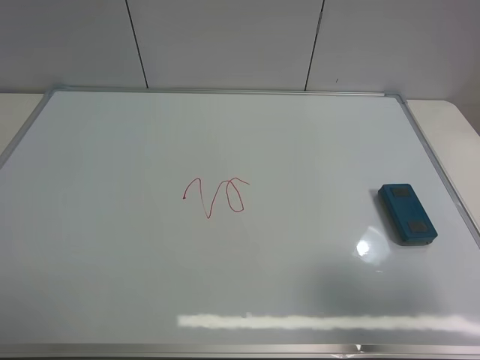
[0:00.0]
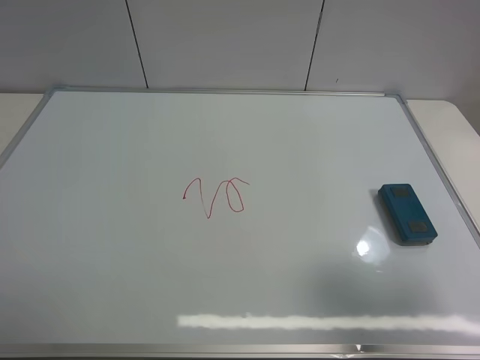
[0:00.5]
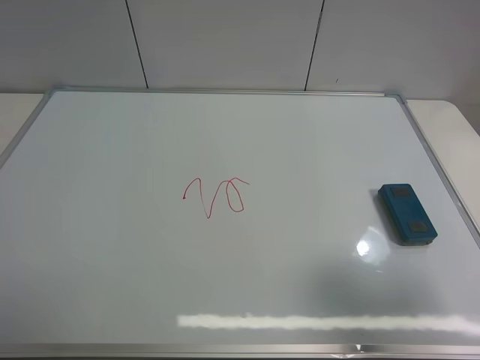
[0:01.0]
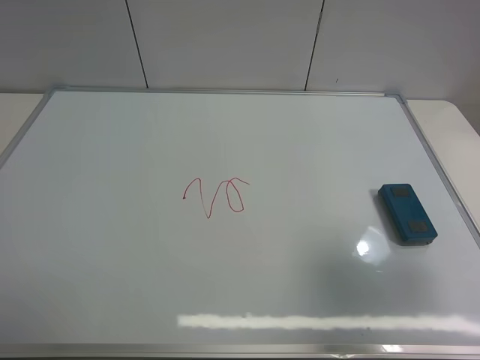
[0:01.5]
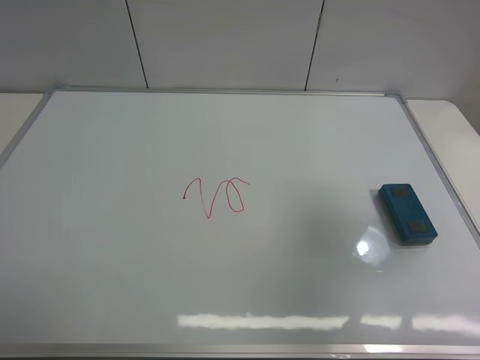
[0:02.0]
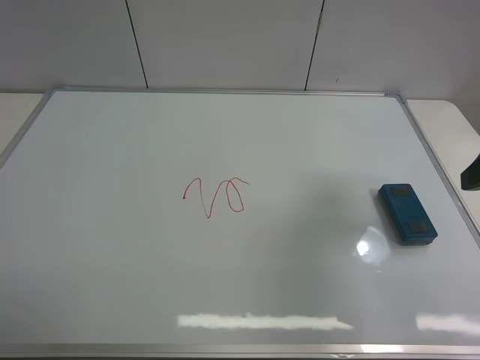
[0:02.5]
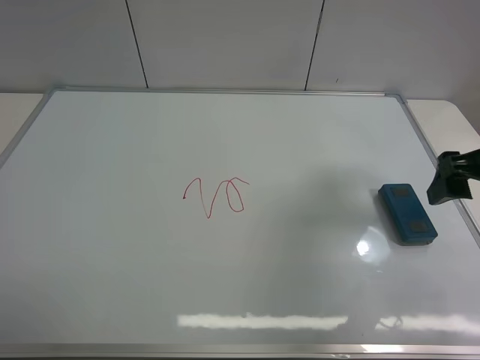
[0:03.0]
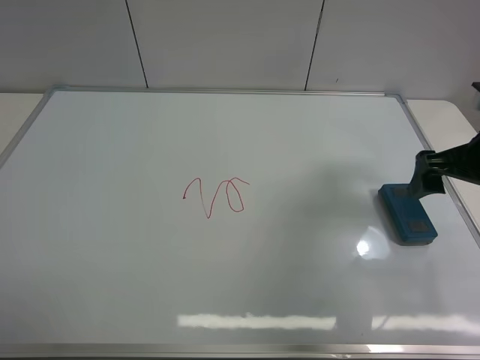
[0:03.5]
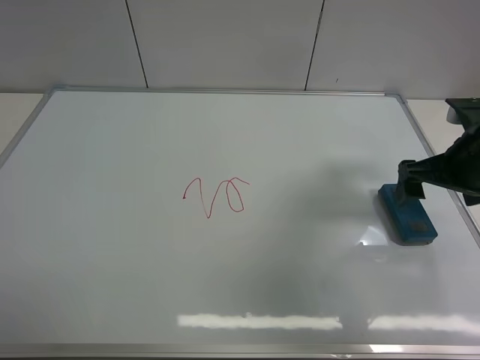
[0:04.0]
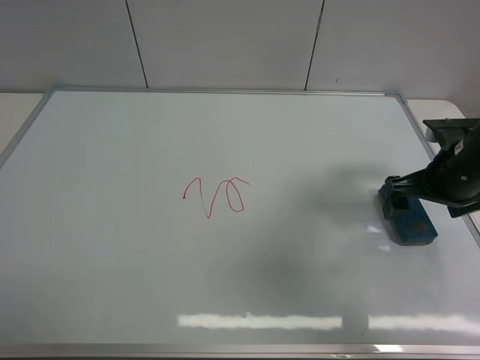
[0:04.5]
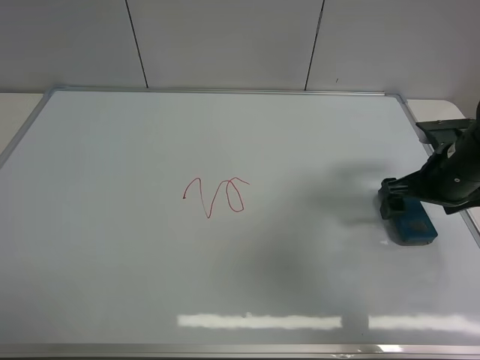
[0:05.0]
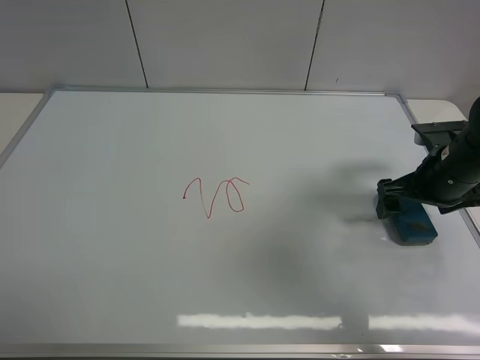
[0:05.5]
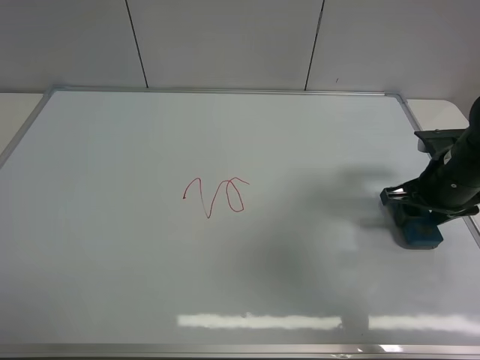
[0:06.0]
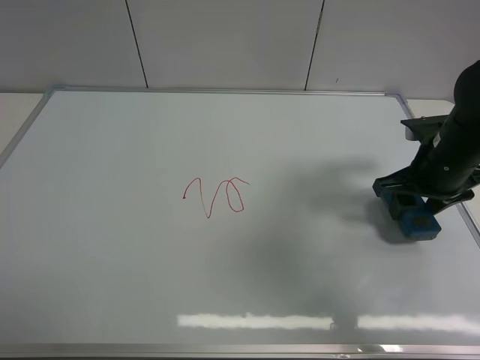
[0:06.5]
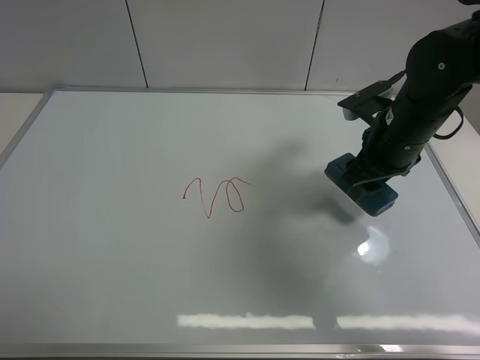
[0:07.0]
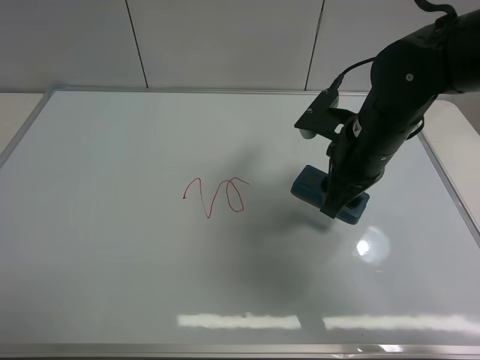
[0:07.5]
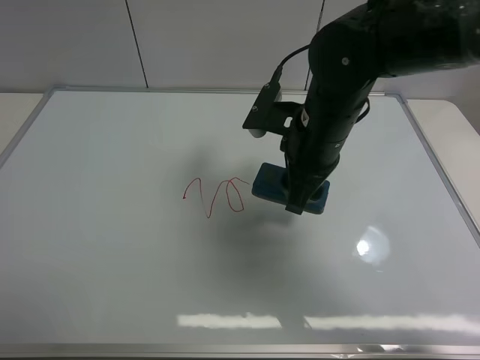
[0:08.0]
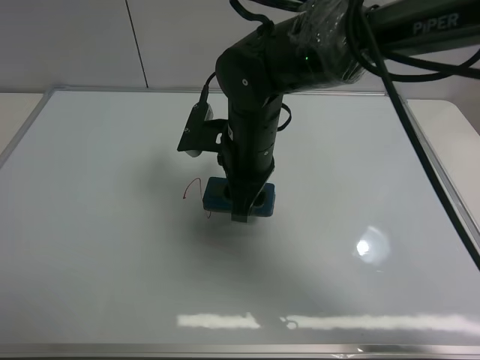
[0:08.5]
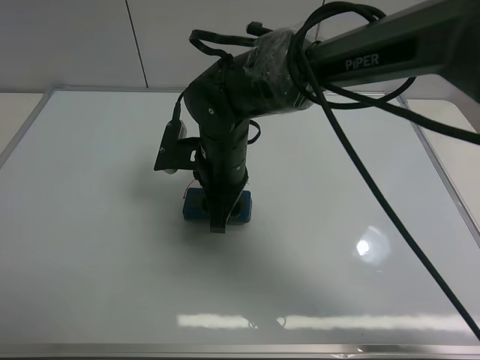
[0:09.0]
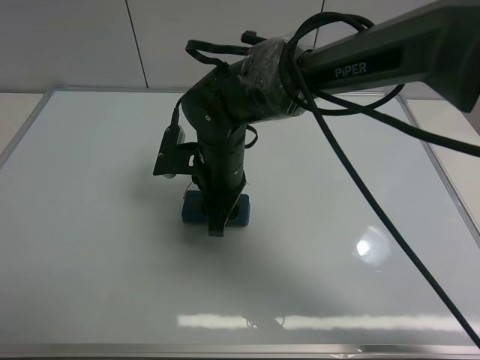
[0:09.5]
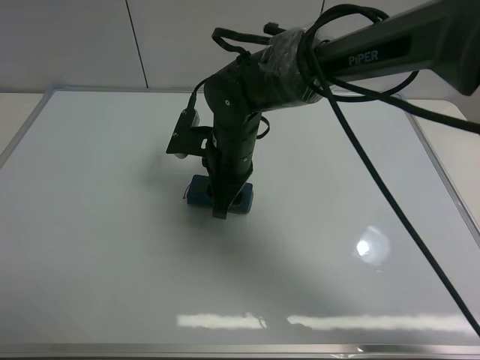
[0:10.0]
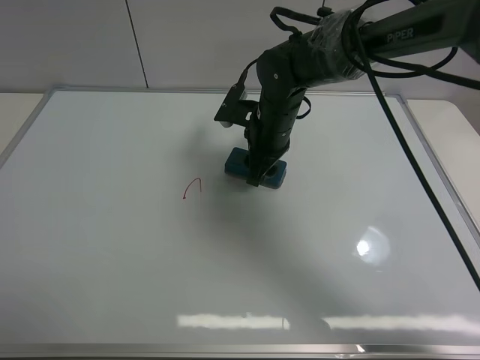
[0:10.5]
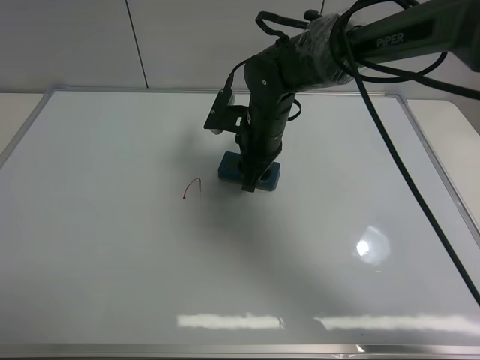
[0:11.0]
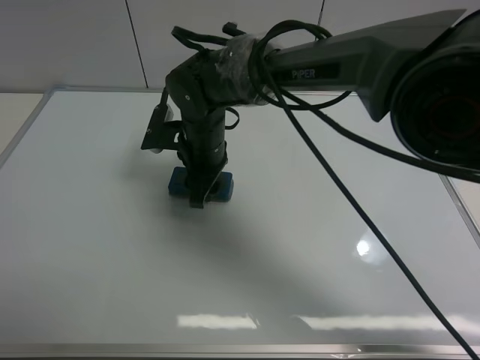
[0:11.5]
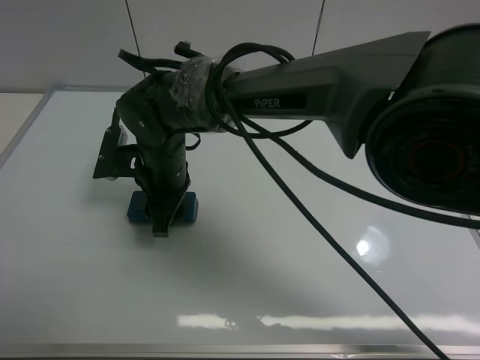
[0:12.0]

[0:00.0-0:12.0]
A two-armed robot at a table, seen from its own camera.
Task of the whole recording: use the right gripper to pick up the board eraser, wipe the notes on the whiteboard clean, and then put them back in place.
Step, 0:00.0 to 0:06.5: Pick up the board eraser with right gripper.
0:00.0 to 0:02.0: The right gripper moves forward, about 10 cm.
0:02.0 to 0:04.0: The right gripper goes roughly 20 cm forward and downward.
0:04.0 to 0:06.0: The right gripper shifts some 5 cm downward, and closes up.
0:06.0 to 0:08.0: The right gripper travels to the left by some 20 cm.
0:08.0 to 0:10.0: The right gripper is displaced to the left and downward by some 10 cm.
0:10.0 to 0:12.0: The right gripper is displaced to the left by approximately 10 cm.

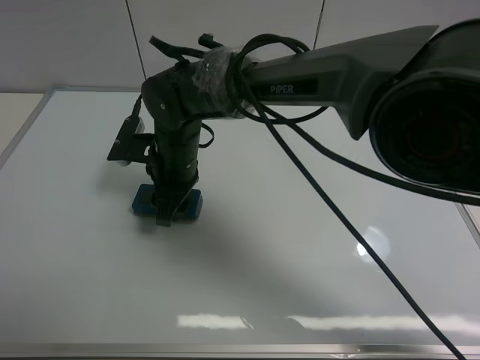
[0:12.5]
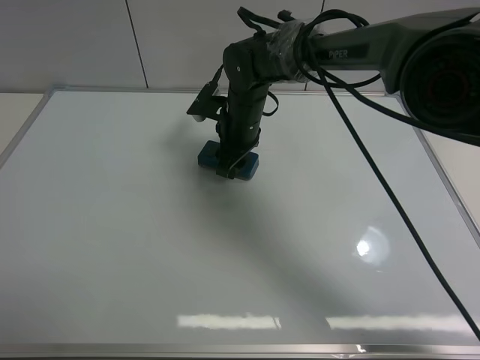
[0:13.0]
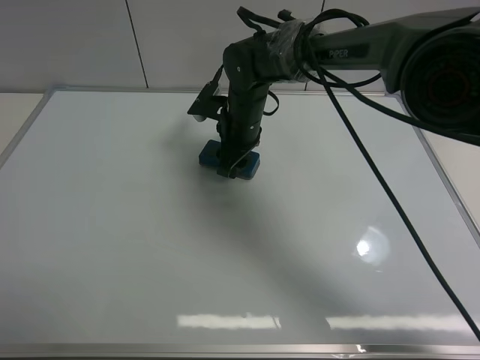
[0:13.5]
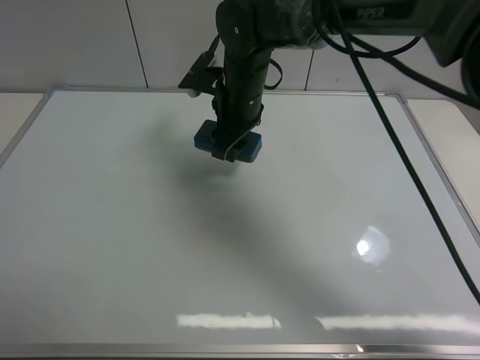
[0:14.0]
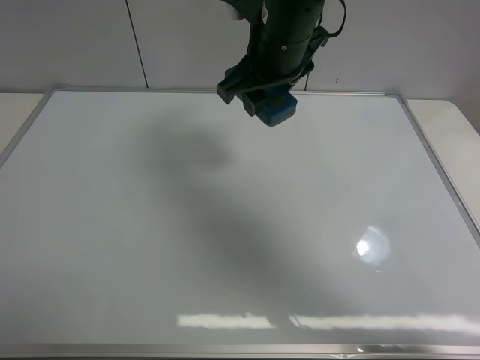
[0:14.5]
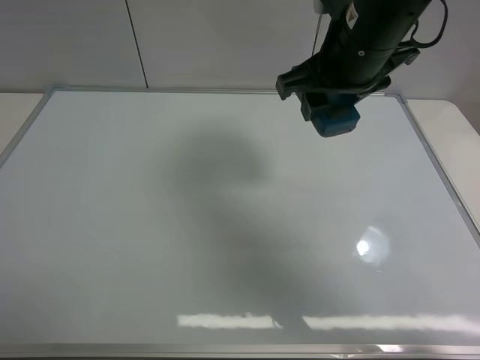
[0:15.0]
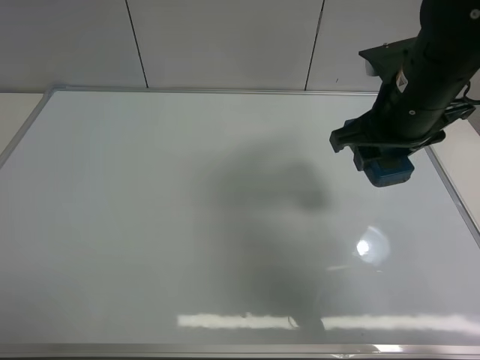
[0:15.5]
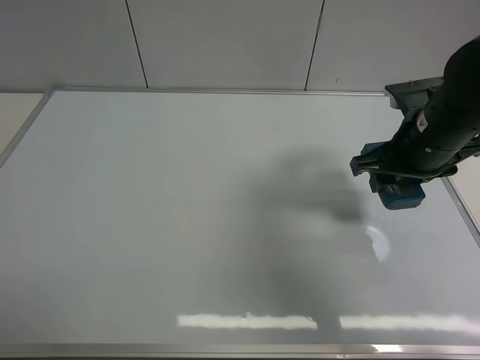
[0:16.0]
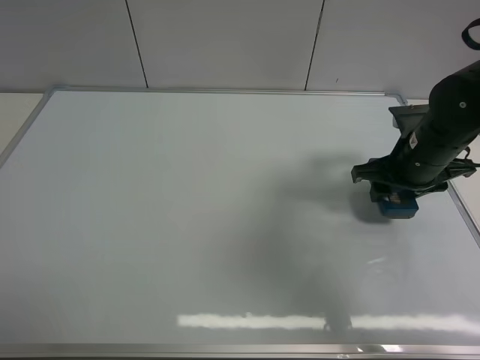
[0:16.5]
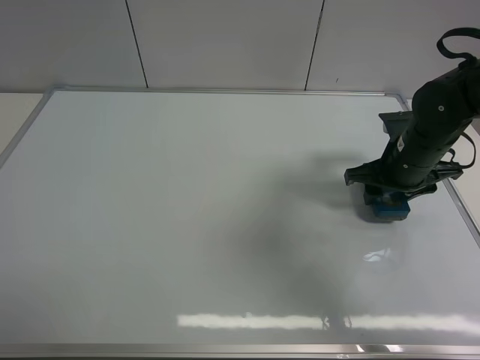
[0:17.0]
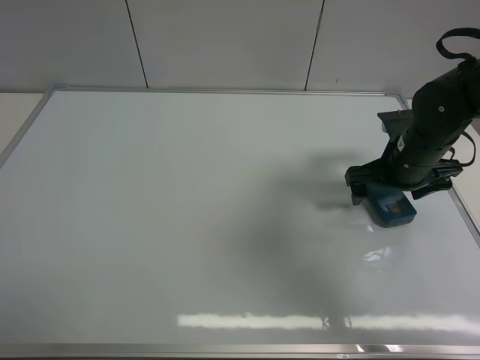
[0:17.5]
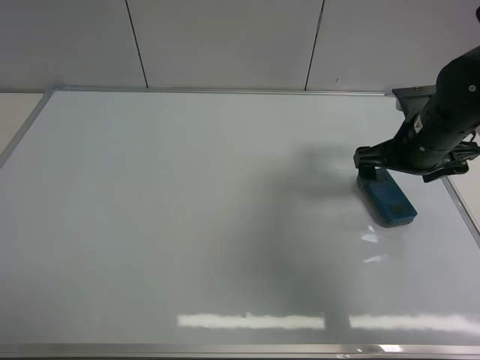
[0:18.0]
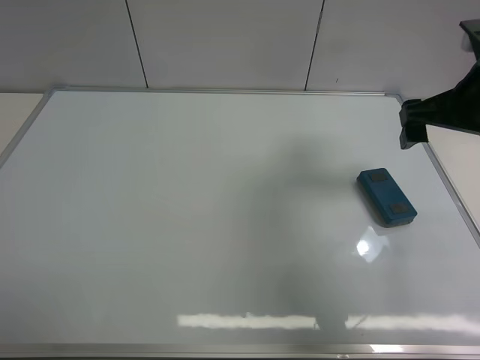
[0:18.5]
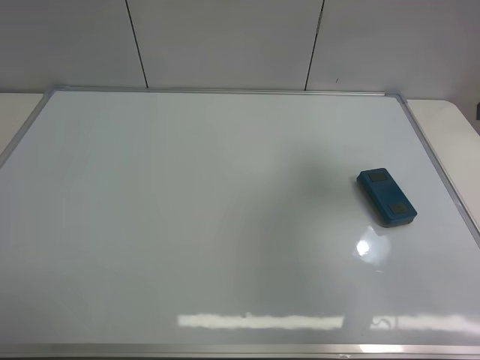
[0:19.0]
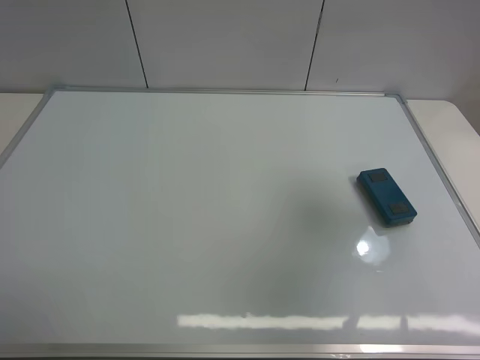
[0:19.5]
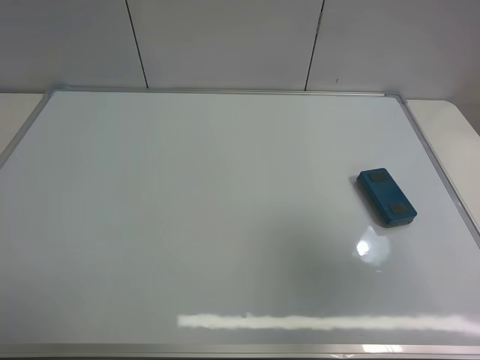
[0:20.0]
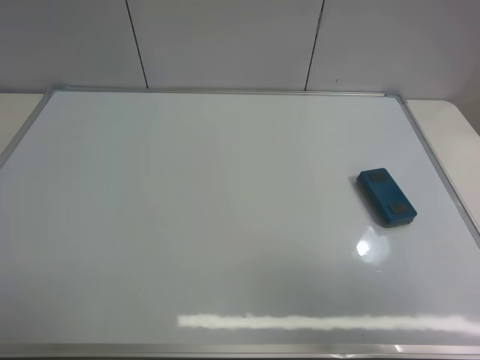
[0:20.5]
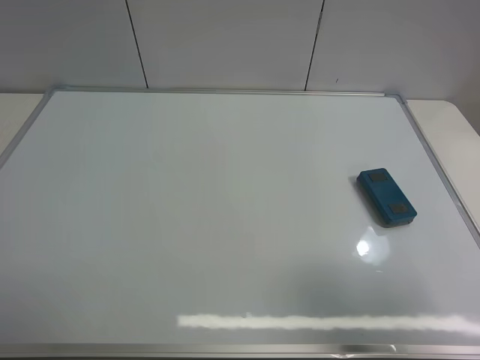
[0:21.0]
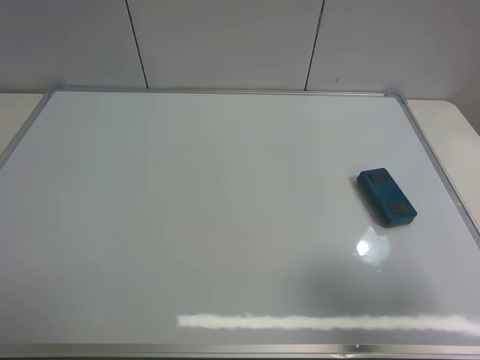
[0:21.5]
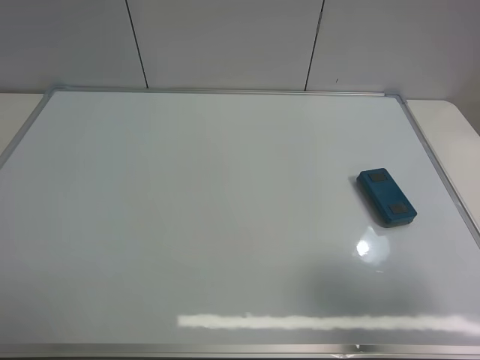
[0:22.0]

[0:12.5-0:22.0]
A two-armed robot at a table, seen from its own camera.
Task of the whole recording: use the right gripper to pick up the board eraser, wipe the notes on the whiteboard clean, and then put them back in place.
Step, 0:14.0 to 0:17.5: Place the board eraser on the right side of board with right gripper.
0:12.5 to 0:14.5: The right gripper travels upward and to the right by approximately 20 cm.
0:14.5 to 0:16.5: The right gripper shifts some 25 cm to the right and downward.
0:16.5 to 0:18.0: The right gripper opens.
0:18.0 to 0:20.0: The right gripper moves backward and upward, approximately 35 cm.
0:20.0 to 0:22.0: The right gripper goes roughly 10 cm downward.
